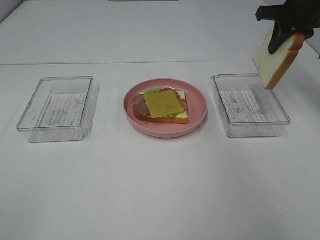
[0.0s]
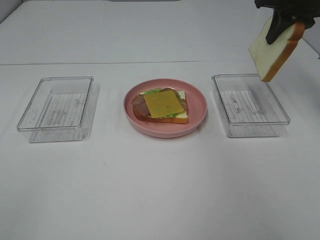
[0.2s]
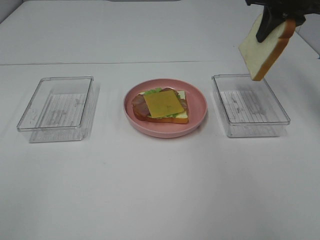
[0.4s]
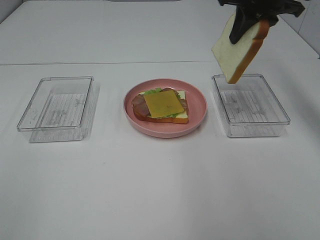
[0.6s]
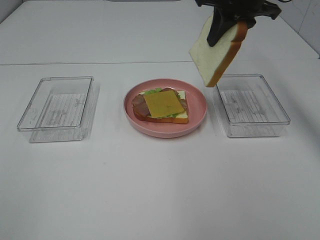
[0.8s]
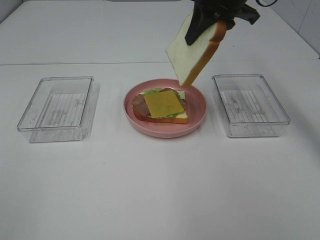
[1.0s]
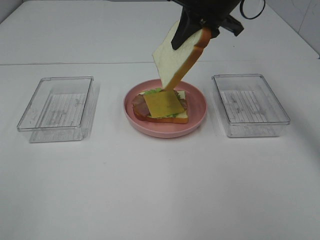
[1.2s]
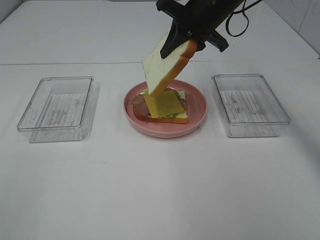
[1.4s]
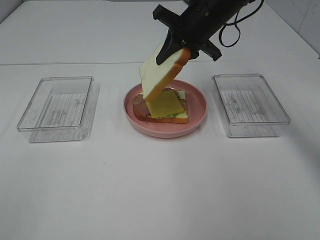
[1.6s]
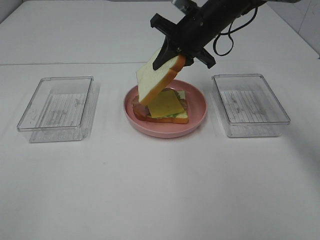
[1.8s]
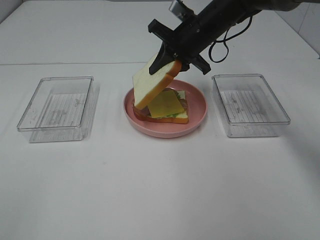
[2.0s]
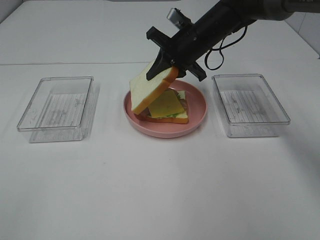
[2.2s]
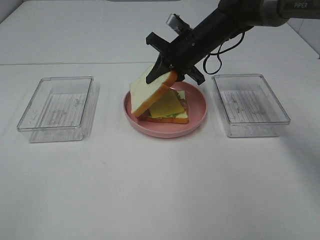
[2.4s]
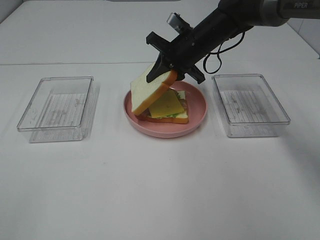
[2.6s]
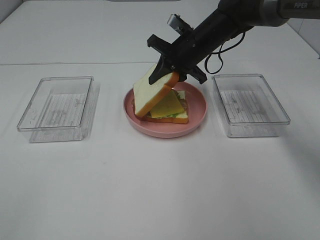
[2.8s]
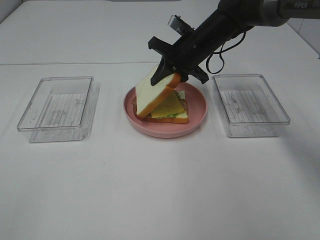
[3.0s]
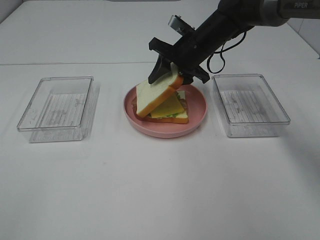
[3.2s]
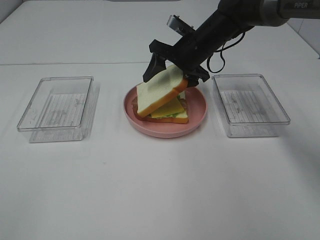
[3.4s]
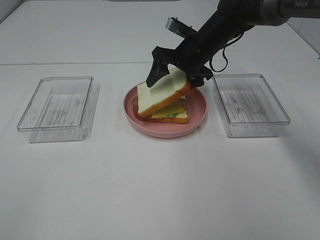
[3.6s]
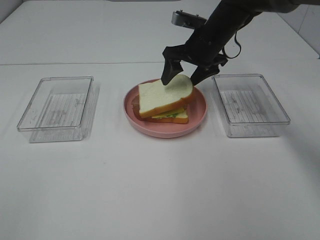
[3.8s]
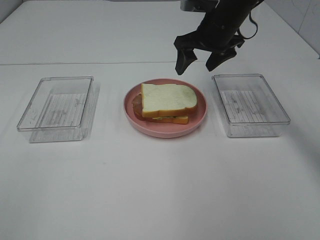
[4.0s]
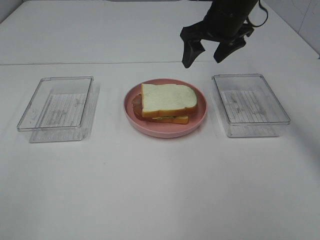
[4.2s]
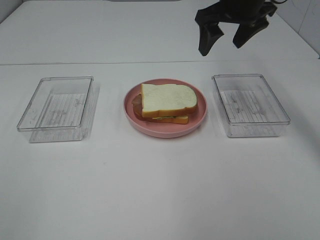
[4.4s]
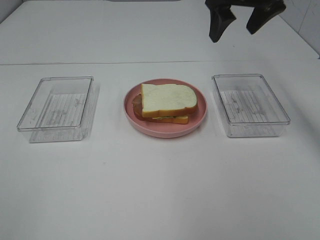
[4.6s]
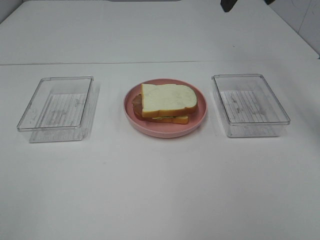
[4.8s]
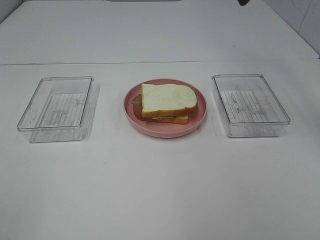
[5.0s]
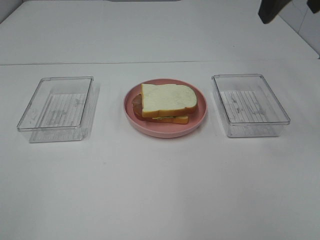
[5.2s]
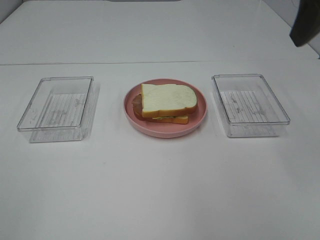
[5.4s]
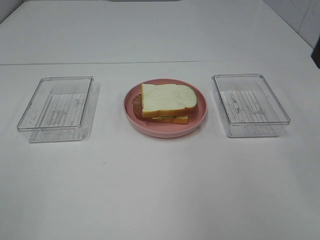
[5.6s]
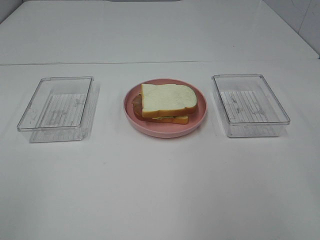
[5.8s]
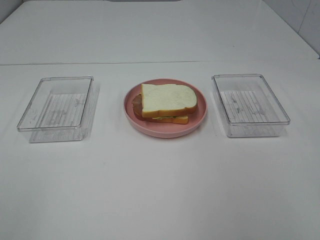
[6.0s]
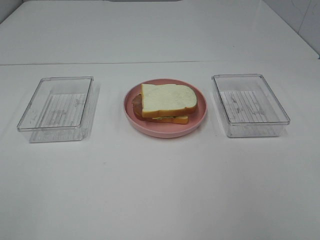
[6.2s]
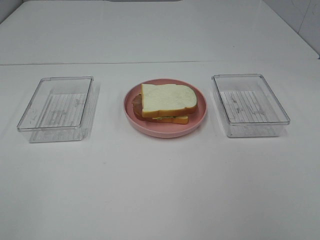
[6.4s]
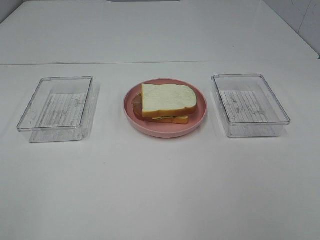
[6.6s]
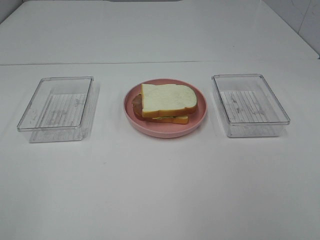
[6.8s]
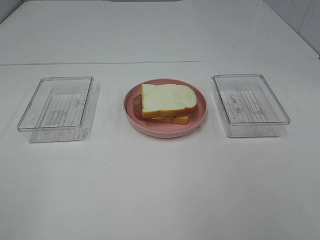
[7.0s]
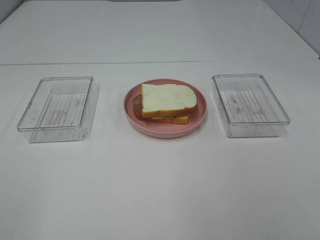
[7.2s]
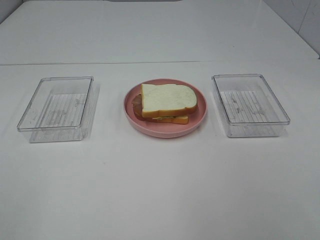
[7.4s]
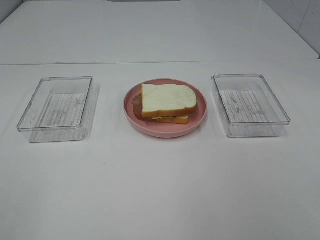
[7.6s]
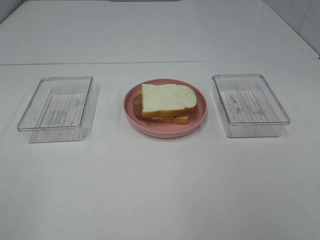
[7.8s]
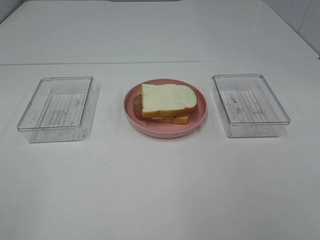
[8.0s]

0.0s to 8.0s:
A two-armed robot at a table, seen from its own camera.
Task of the whole recording: Make sandwiches.
Step, 0.0s to 3.8s: Right hand:place the bread slice on the cheese slice.
0.0s to 1.6s: The right gripper shifts approximately 20 cm to the left.
1.6s to 3.2s: The right gripper heads downward, covering some 5 cm, and opens up.
3.2s to 4.8s: The right gripper goes approximately 20 cm upward.
4.8s to 6.4s: The right gripper goes roughly 35 cm backward.

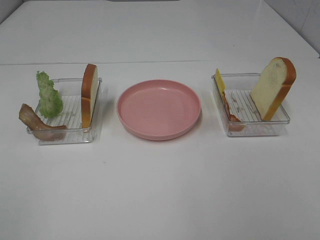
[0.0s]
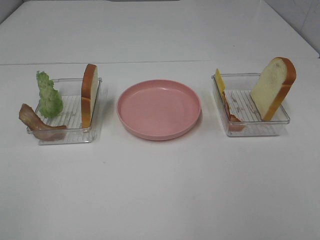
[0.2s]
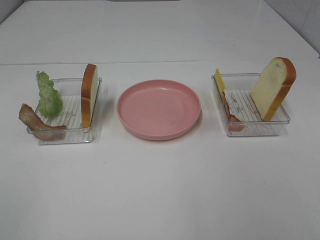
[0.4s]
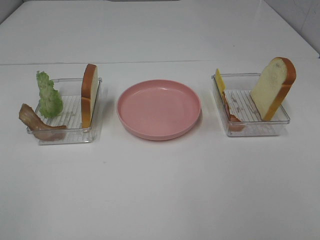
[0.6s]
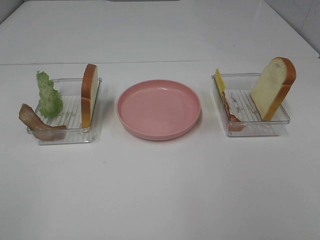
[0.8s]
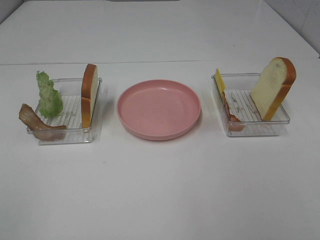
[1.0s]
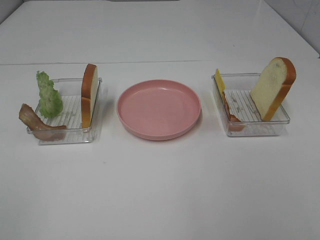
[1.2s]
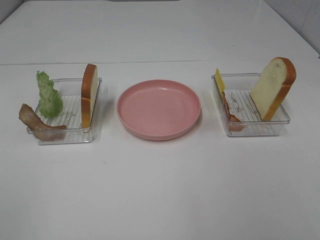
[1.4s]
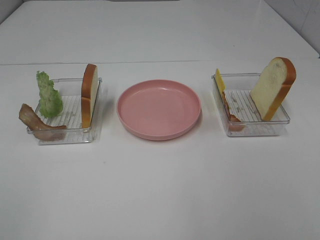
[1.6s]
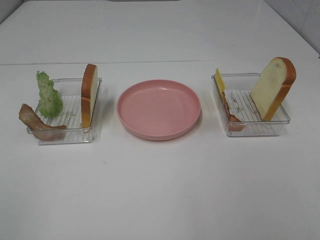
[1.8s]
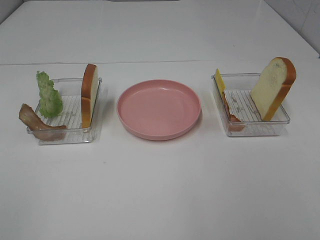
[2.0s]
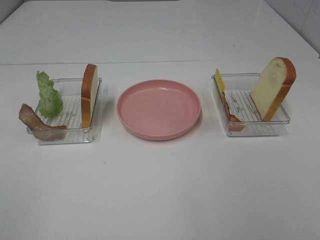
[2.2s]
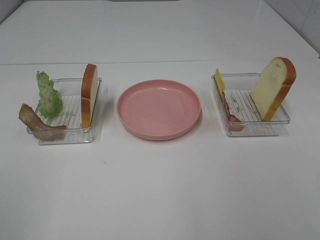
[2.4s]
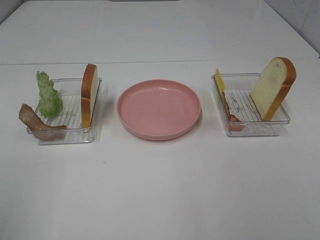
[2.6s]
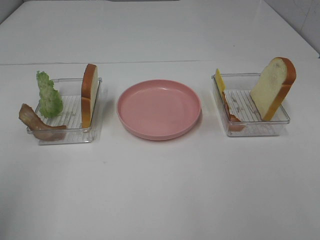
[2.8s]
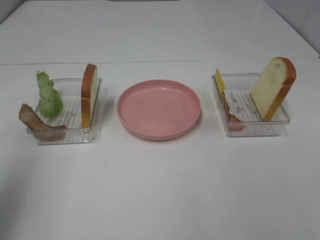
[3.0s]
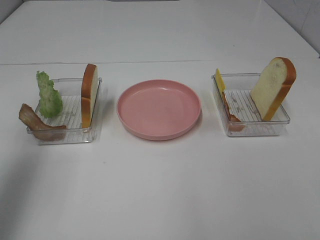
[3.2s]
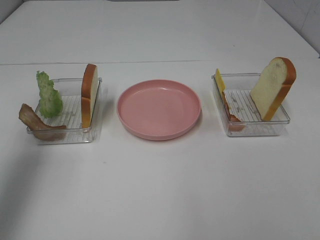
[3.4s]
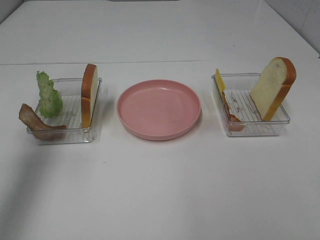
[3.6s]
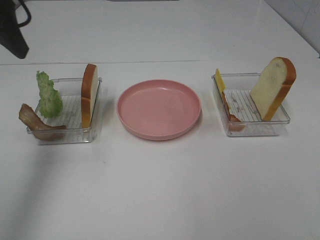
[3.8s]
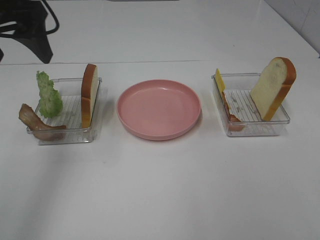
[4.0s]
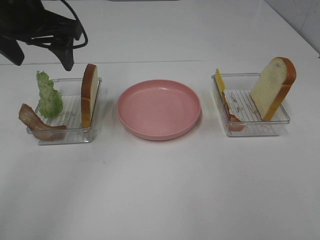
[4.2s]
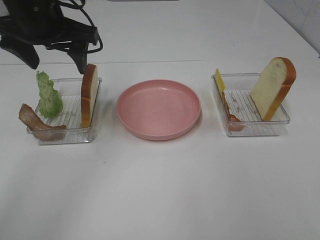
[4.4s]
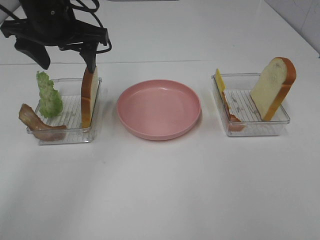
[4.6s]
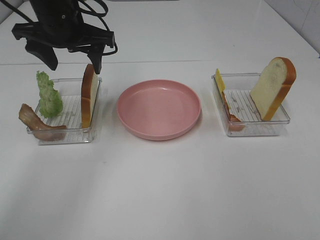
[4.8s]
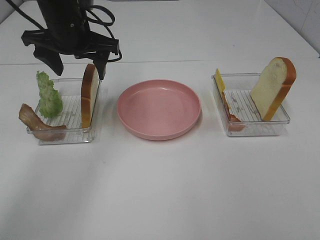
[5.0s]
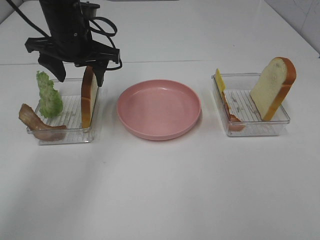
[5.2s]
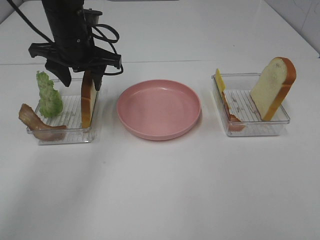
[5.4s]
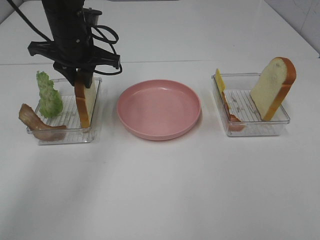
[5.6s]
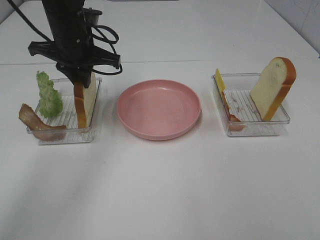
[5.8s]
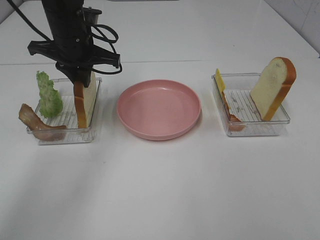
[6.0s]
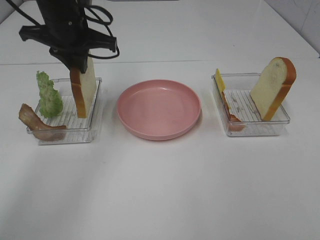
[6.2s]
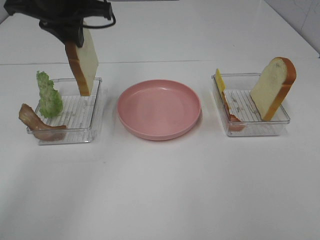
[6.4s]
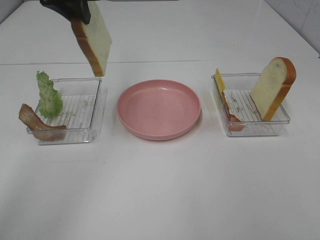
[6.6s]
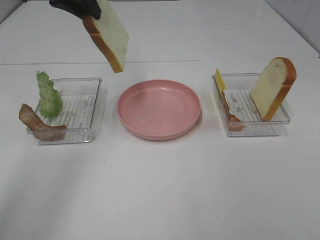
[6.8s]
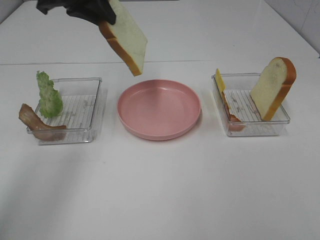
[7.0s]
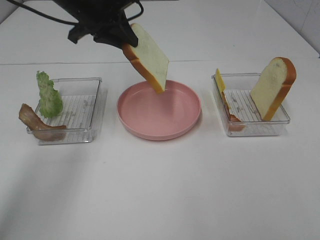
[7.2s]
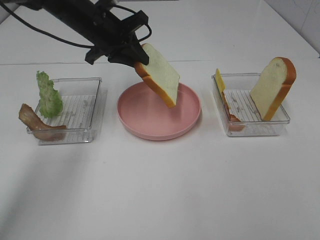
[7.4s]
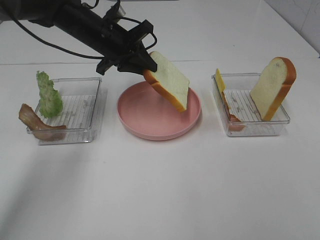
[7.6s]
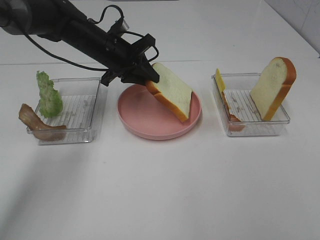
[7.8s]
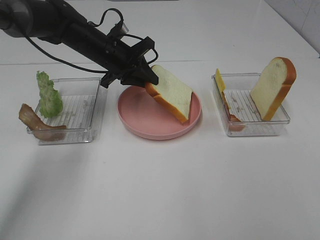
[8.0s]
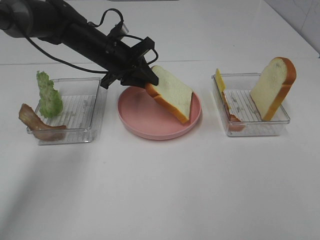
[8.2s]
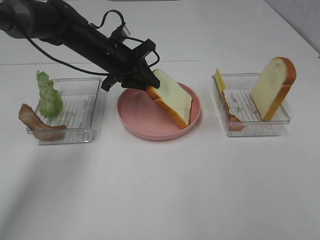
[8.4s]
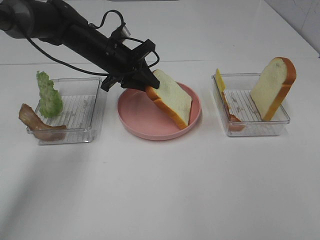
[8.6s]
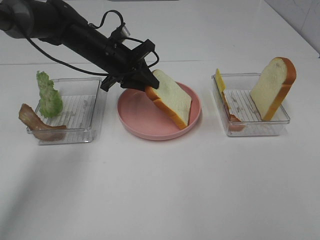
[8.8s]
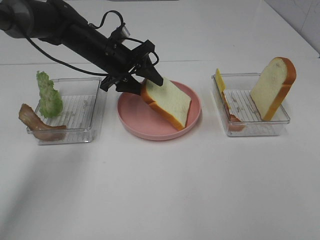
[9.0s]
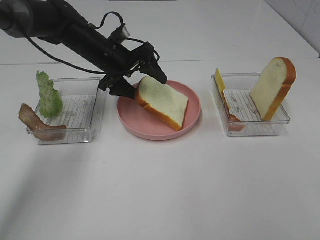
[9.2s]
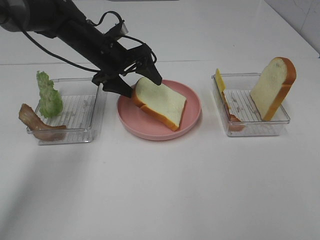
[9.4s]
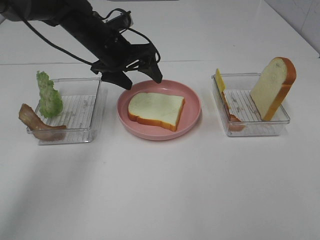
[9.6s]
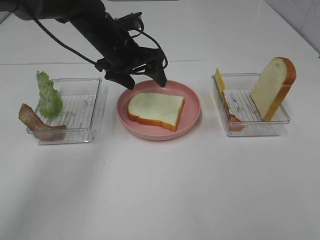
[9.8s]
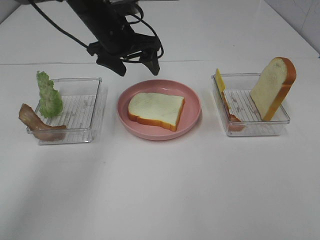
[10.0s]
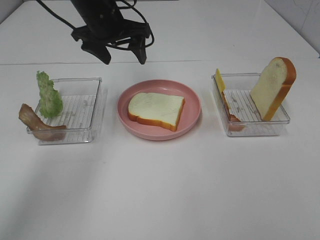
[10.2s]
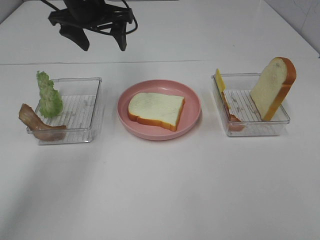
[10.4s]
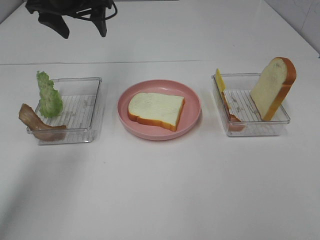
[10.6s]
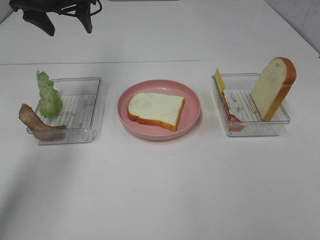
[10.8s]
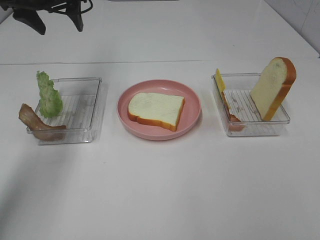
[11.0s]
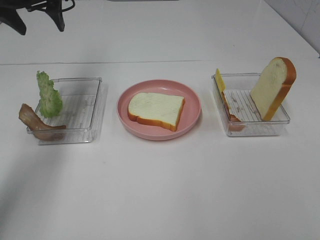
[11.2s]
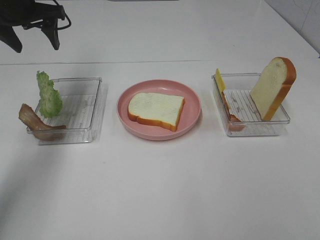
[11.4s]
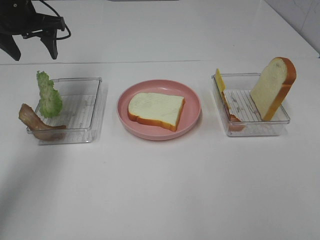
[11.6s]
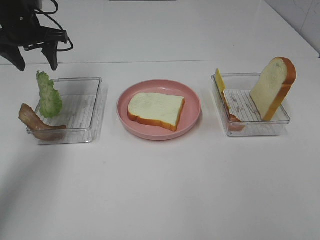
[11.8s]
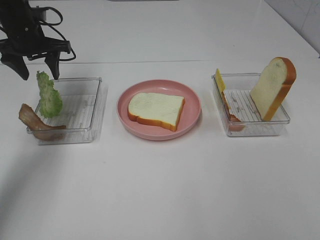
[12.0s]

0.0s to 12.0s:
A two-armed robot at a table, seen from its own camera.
Task of the whole recording: Make sandwiches.
Step, 0.0s to 5.6s: Left hand:grab the bread slice.
Step, 5.8s to 9.8s: Left hand:place the bread slice on the plate.
0.0s to 1.6s: Both grippers stay put.
1.6s to 3.0s: The left gripper moves forward, approximately 15 cm.
3.0s to 4.4s: The left gripper travels forward and to the right by some 25 cm.
4.4s to 6.0s: The left gripper heads downward and forward, covering approximately 10 cm, and closes.
6.0s to 7.6s: The left gripper reaches approximately 10 cm upward, then returns.
7.6s to 9.0s: The left gripper opens its fingers.
9.0s to 10.4s: The left gripper moves upward, some 10 cm.
10.4s to 12.0s: The left gripper shifts some 15 cm to the left and downward.

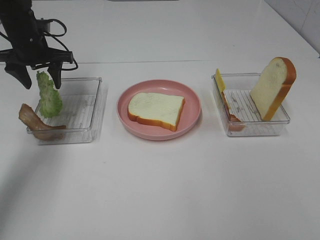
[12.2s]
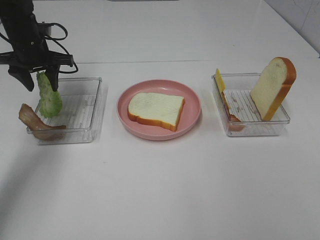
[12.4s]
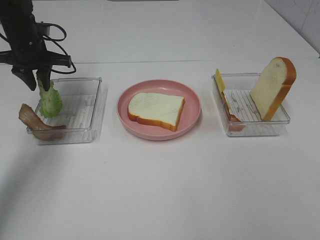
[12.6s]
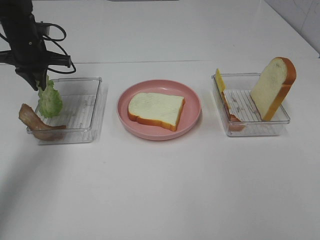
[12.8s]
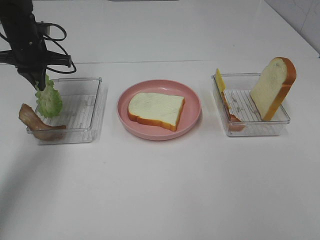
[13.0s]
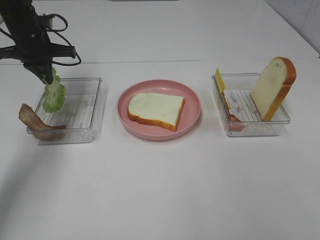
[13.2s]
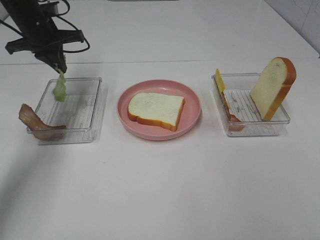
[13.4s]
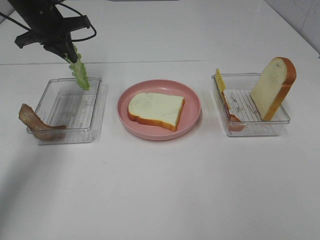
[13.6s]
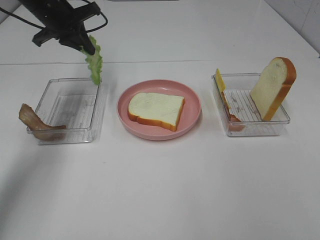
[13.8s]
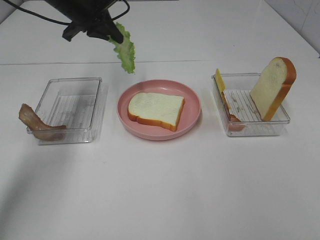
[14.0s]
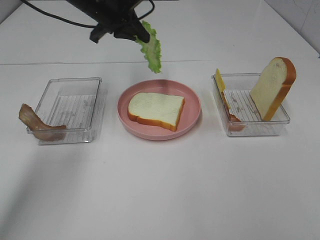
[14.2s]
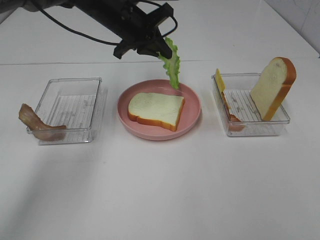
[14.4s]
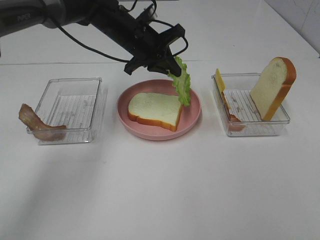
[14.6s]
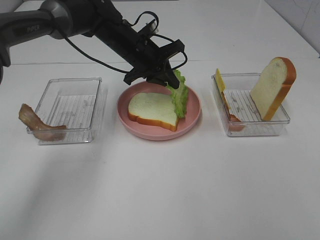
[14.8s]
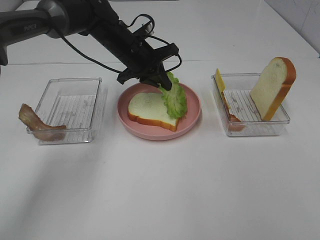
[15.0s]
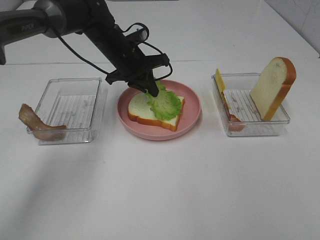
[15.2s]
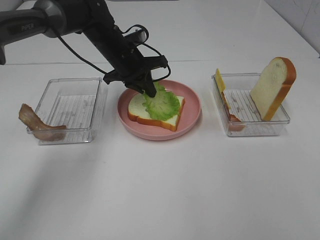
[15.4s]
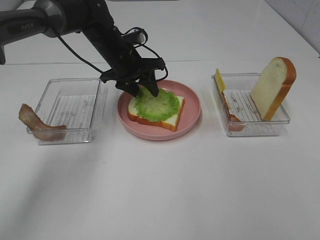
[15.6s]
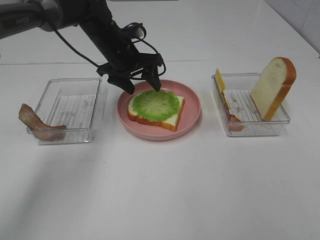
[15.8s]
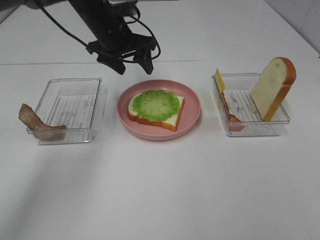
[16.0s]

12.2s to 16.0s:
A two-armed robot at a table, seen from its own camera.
Task of the whole recording: Make sandwiches.
Step, 13.0s to 15.8s: Left hand:place the lettuce slice on the bread slice.
12.2s to 13.4s: The left gripper closes up.
13.4s to 14.8s: The left gripper is displaced to the right by about 20 cm.
14.8s to 16.0s: The left gripper is displaced upward by roughly 5 cm, and opens its fingers.
